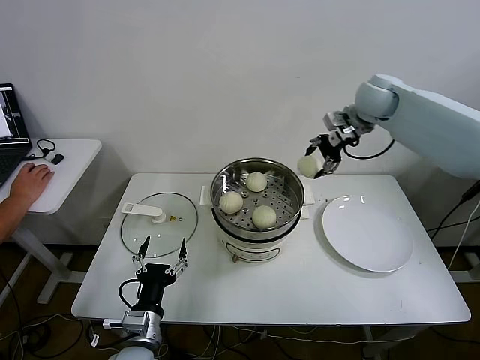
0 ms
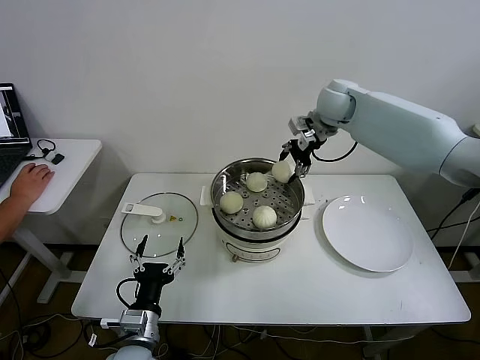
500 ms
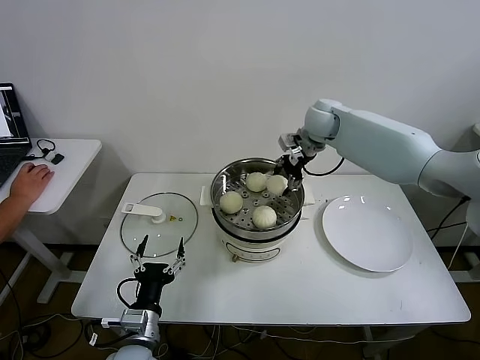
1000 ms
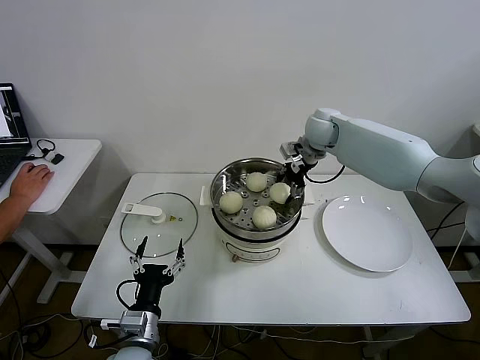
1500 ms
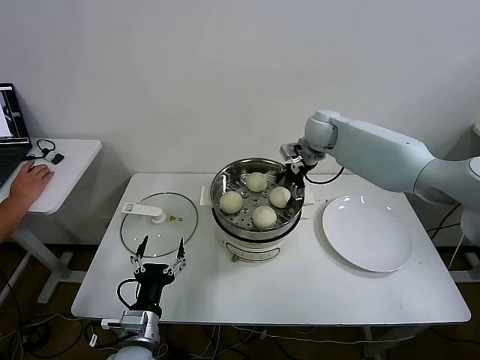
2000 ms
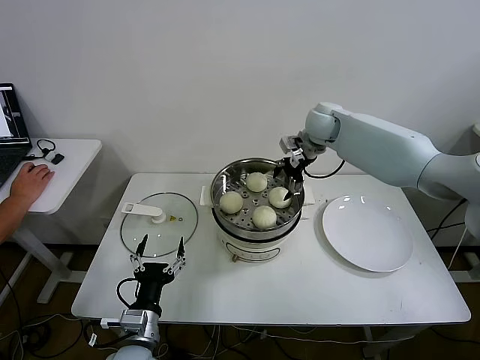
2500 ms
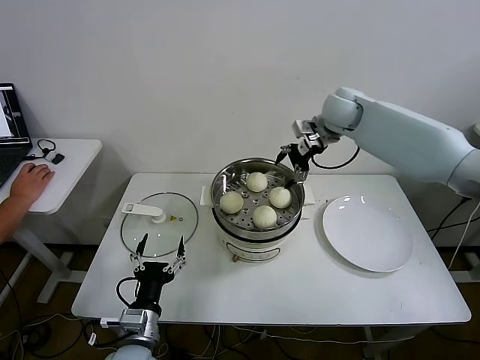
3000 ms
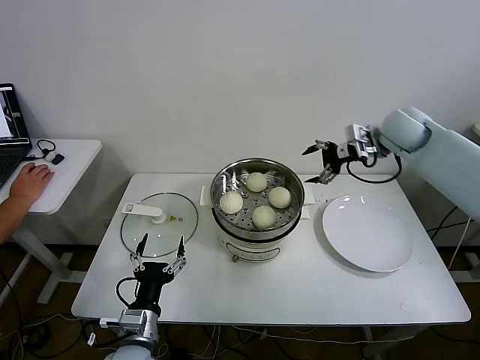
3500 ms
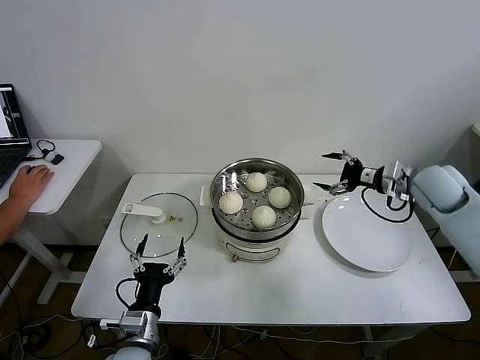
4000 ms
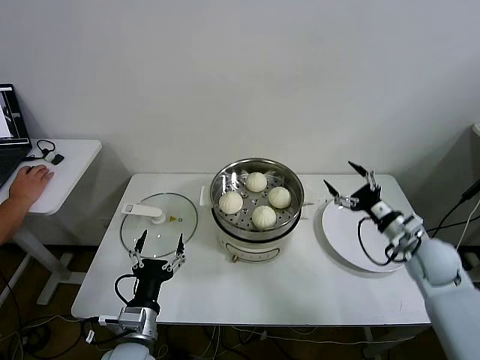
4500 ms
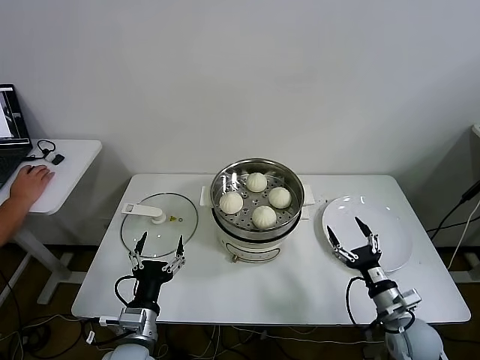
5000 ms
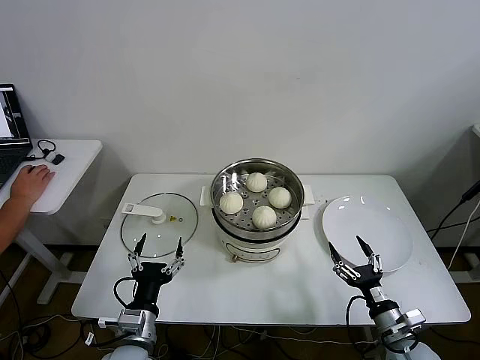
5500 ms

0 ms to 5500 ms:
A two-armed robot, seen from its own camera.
Step, 0 ms to 2000 ms: Place the baozi on the steamer with right gripper.
0 ms to 2000 ms: The right gripper travels to the left and downward by some 15 cm, and opens.
2000 ms to 3500 ms: The right gripper is displaced to the right, backward and upward by approximately 15 cm.
3500 ms to 5500 ms: The right gripper goes approximately 50 cm backward and downward.

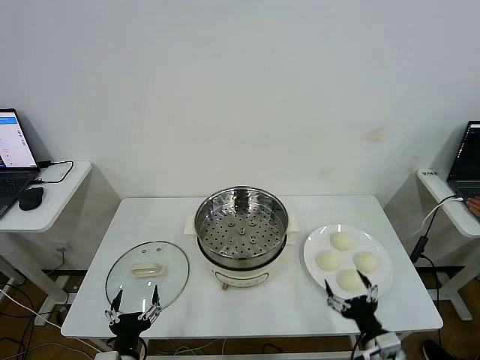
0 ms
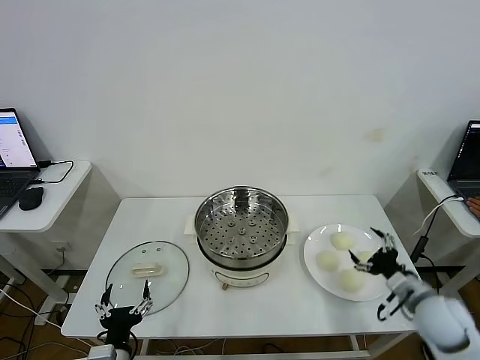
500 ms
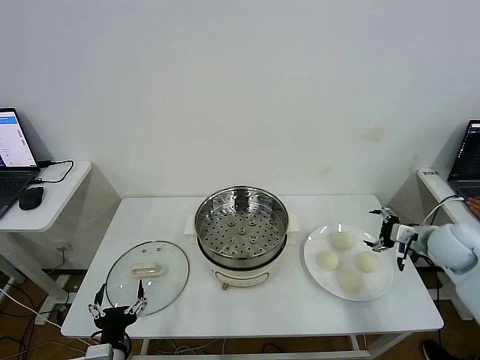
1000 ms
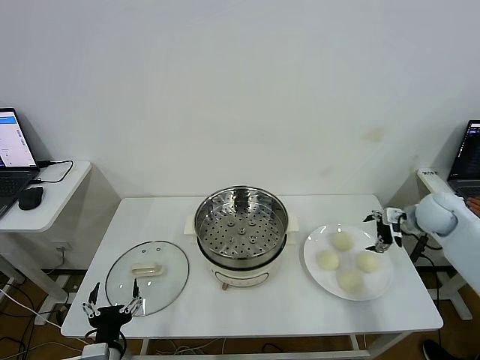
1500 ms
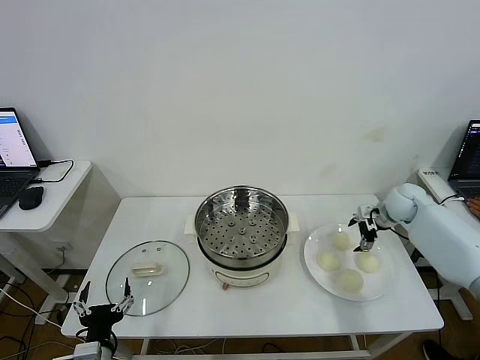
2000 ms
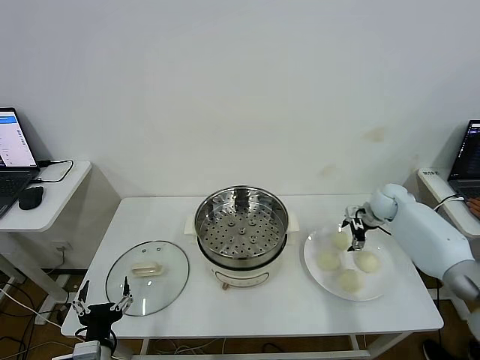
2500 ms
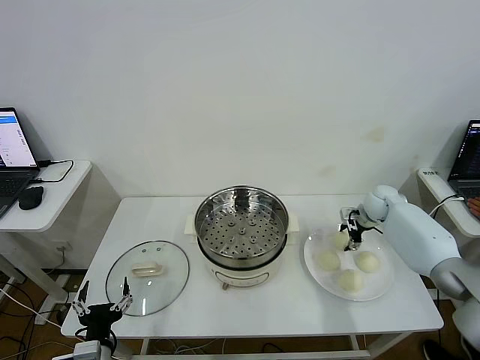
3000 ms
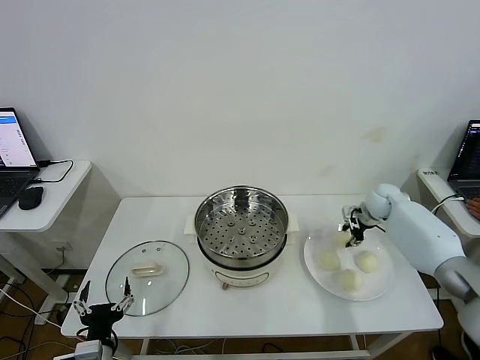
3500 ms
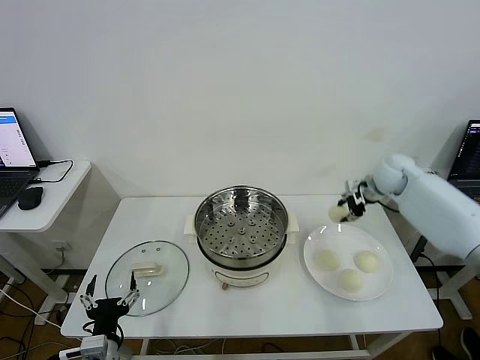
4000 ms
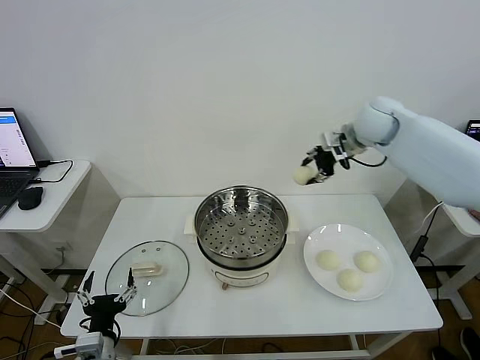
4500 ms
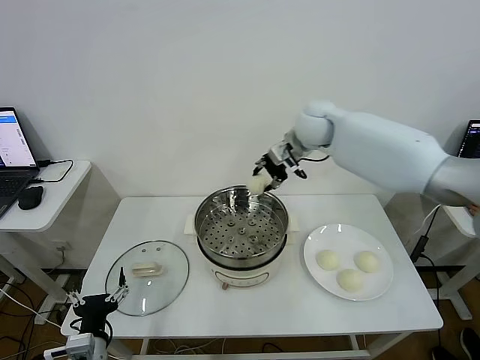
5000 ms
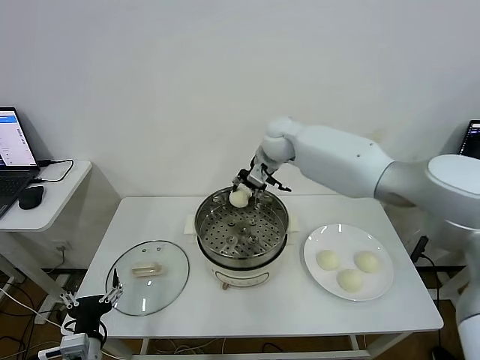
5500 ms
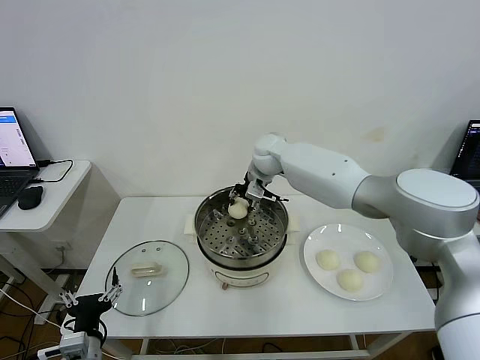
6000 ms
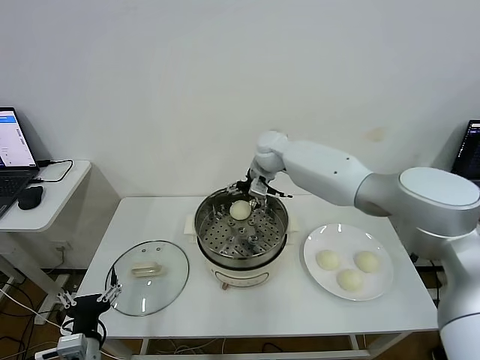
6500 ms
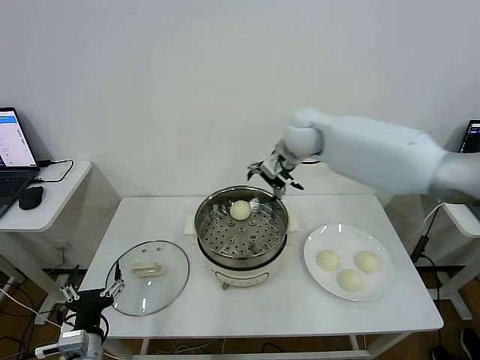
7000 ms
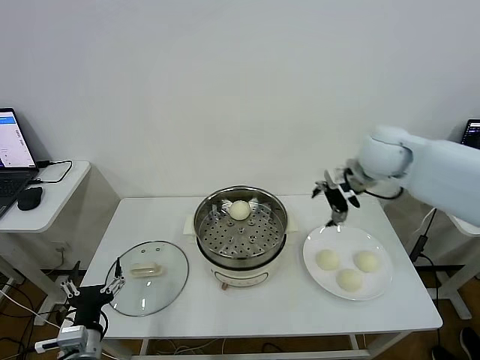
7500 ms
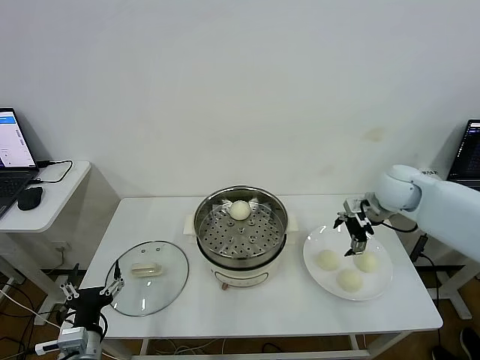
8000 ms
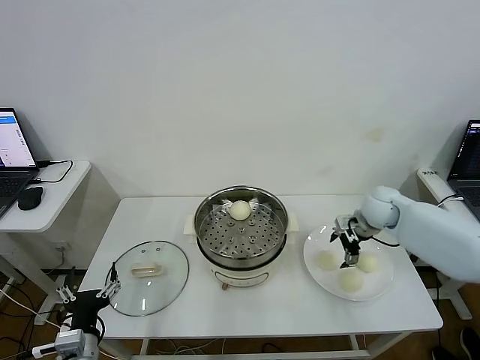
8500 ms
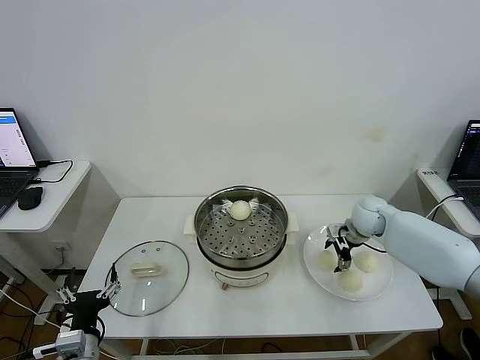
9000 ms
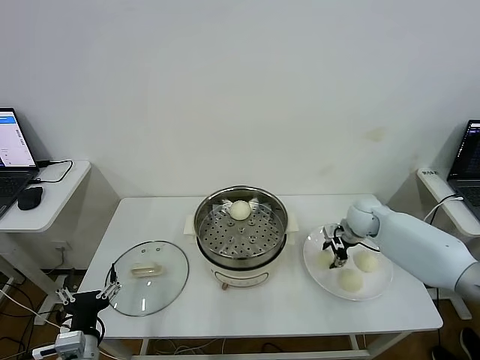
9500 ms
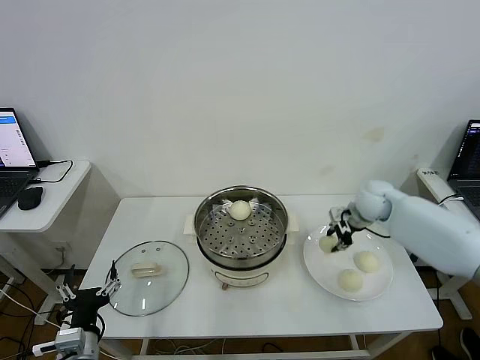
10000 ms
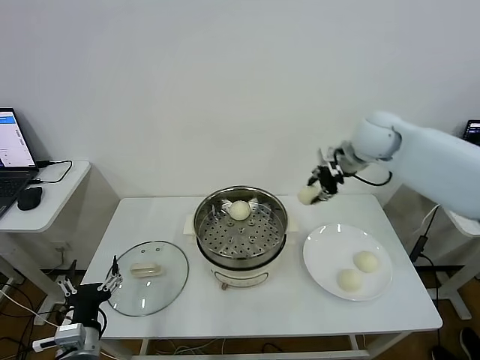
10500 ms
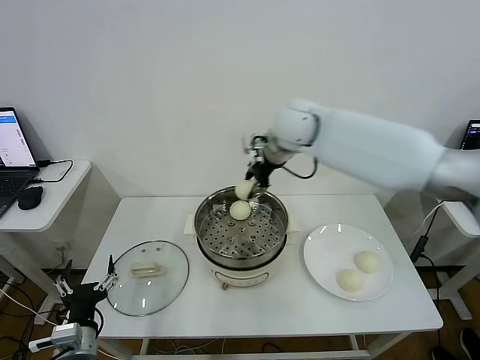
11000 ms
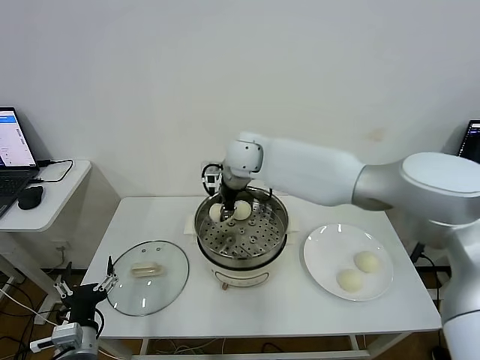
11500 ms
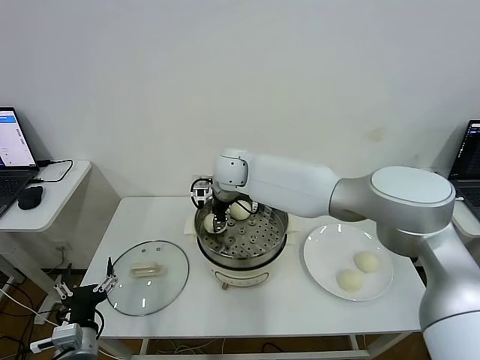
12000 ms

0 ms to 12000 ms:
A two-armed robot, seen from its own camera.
Step, 0 ms to 3000 ms: Grasp the baozi in the plate with right gripper.
Step, 3500 ms to 6500 ms: Place the baozi on the steamer with right gripper.
Step, 7000 ms to 9000 ms: Grasp the baozi in the plate with right gripper.
2000 ms to 4000 ms: The right gripper moves upward and to the left, about 15 cm, and closes its fingers.
4000 ms to 6000 ms: The right gripper moves to the left, some 30 cm.
6000 ms to 8000 ms: The right gripper travels to the right and backward by some 30 cm, and opens its fingers.
8000 ms to 10000 ms: The right gripper travels downward and back again, roughly 10 cm each way, and closes.
10000 ms to 12000 ms: The right gripper heads to the left, covering roughly 35 cm.

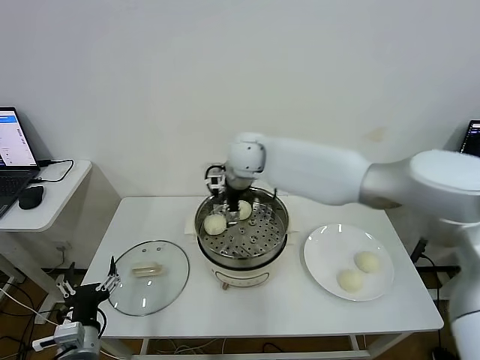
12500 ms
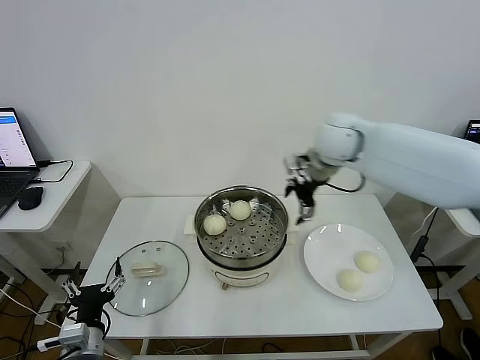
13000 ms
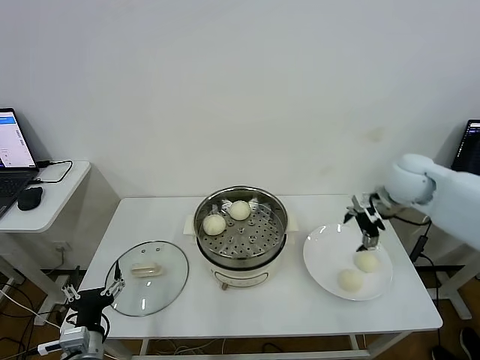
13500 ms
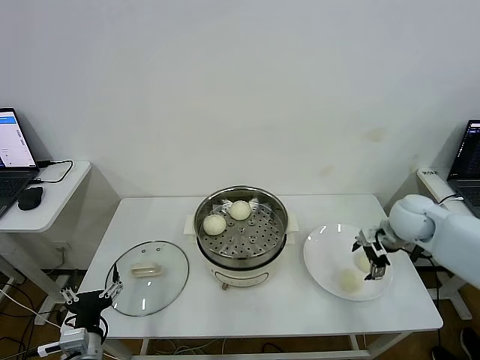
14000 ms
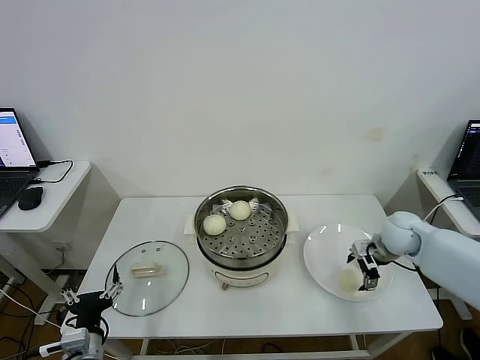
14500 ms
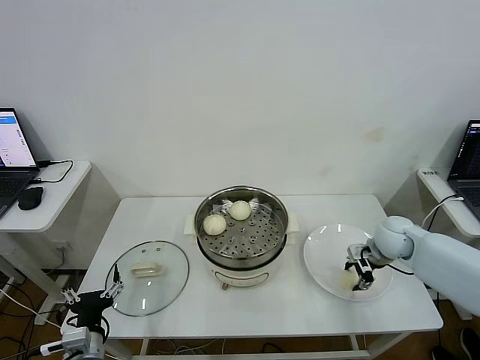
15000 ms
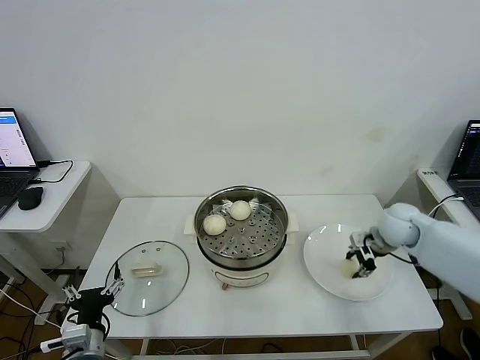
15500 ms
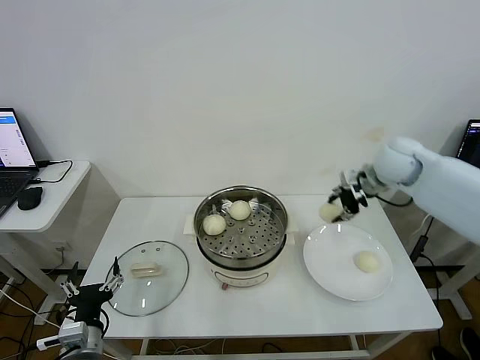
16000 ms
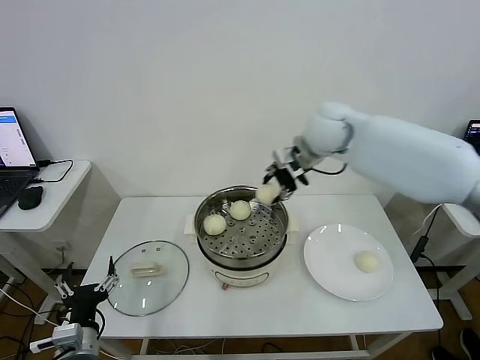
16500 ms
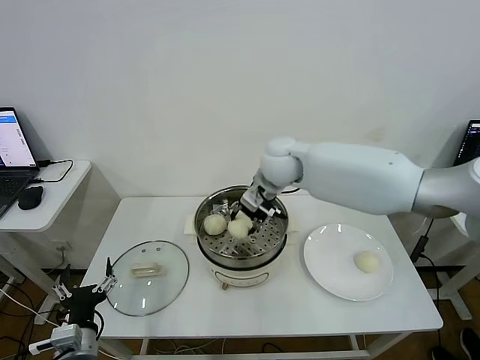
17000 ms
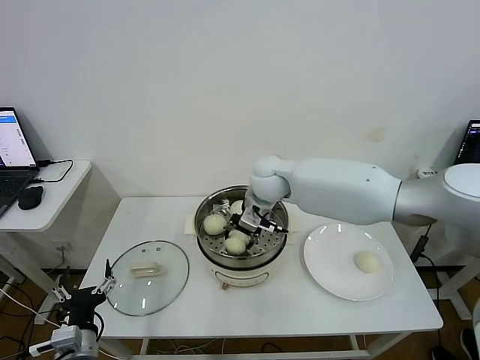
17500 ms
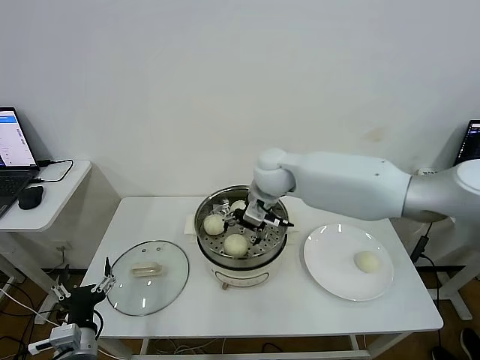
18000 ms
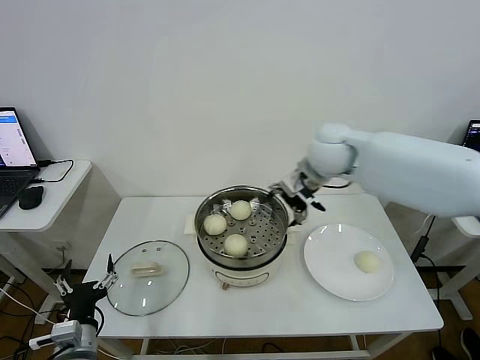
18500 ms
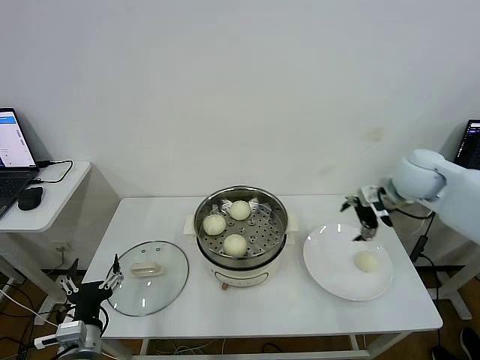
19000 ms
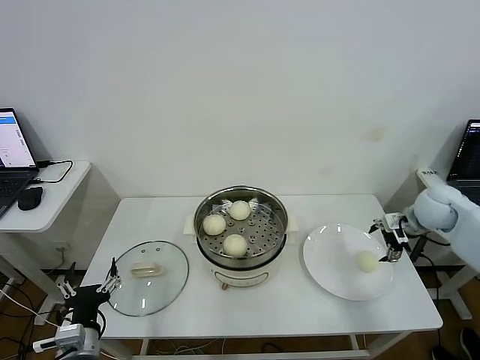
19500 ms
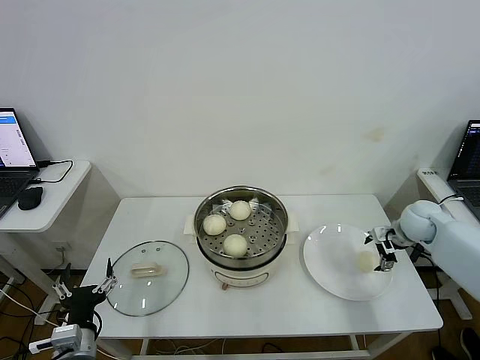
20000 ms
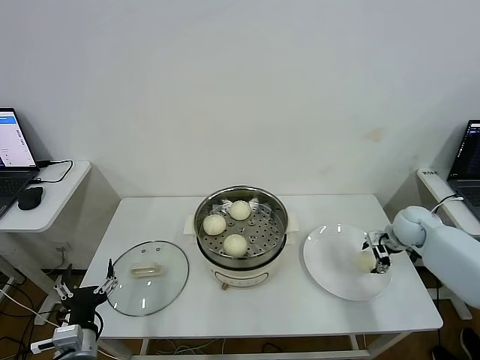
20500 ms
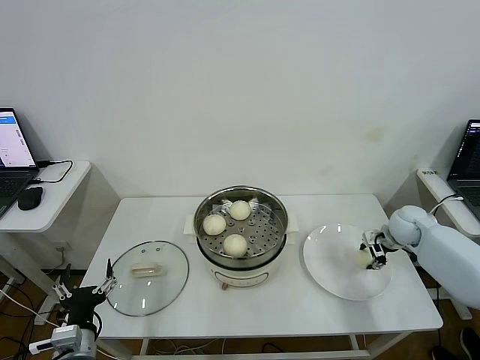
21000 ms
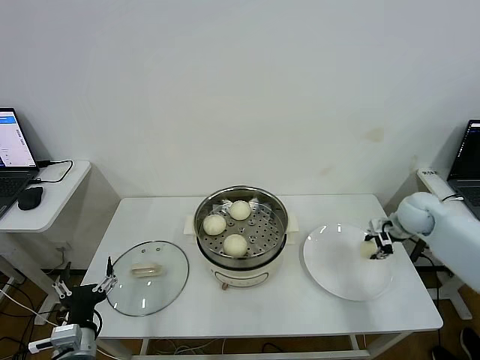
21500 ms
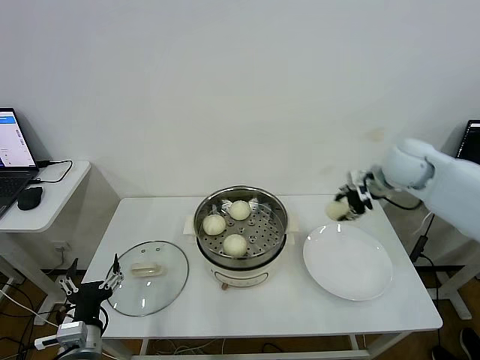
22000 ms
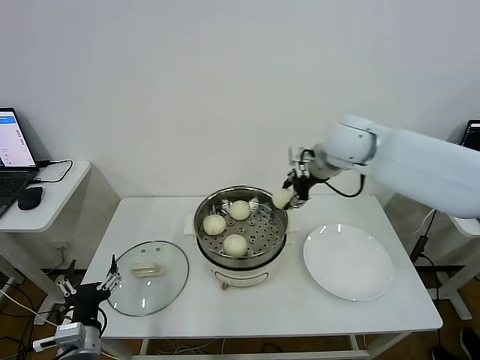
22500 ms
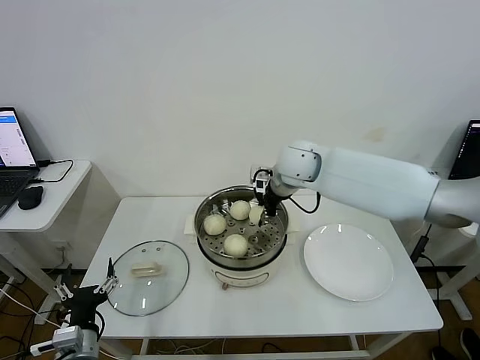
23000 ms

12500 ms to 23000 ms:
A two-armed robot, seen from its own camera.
Step, 13000 ms to 15000 ms: Grasp the baozi in the plate with right gripper.
Step, 15500 ms to 18000 ms: Place the baozi on the steamer with right gripper.
Step, 18500 ms to 21000 ms: Grasp the baozi in the plate with right gripper.
12500 ms to 14500 ms: The right gripper travels to the right and downward by roughly 40 cm.
14500 ms to 16500 ms: The right gripper moves to the left and upward, some 30 cm, and closes up.
16500 ms to 19000 ms: The right gripper travels to the right by about 20 cm, and opens up.
19000 ms to 21000 ms: The right gripper goes some 15 cm downward, and closes.
21000 ms to 23000 ms: The right gripper travels to the left and upward by roughly 35 cm.
